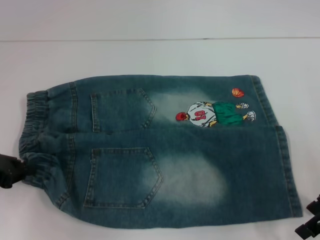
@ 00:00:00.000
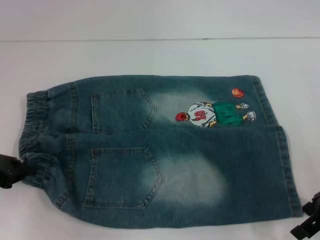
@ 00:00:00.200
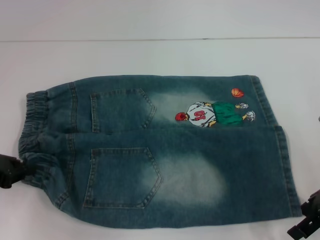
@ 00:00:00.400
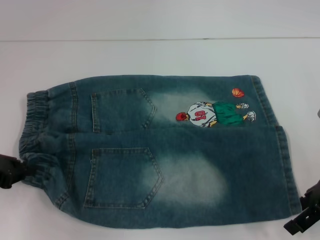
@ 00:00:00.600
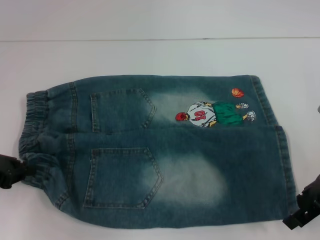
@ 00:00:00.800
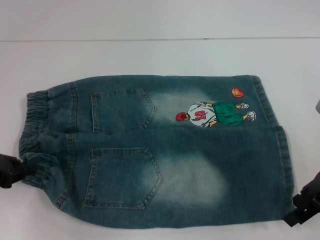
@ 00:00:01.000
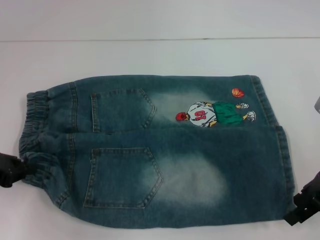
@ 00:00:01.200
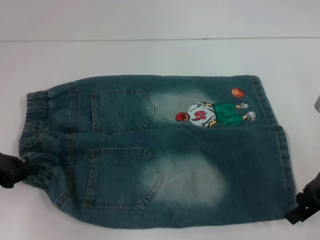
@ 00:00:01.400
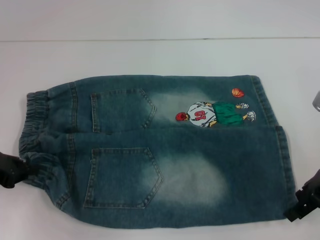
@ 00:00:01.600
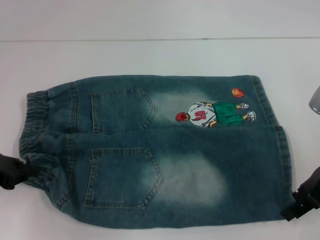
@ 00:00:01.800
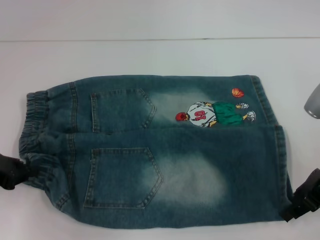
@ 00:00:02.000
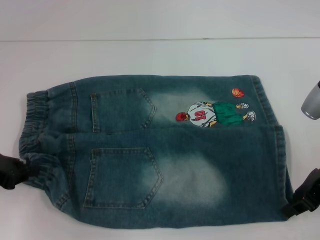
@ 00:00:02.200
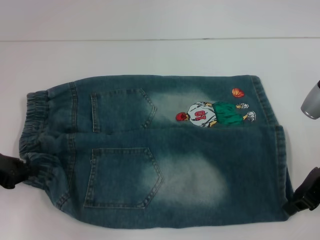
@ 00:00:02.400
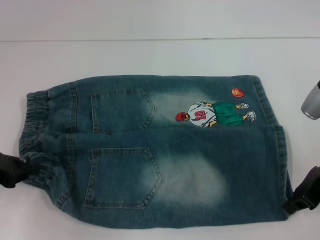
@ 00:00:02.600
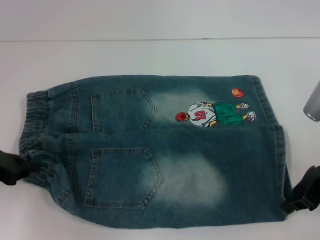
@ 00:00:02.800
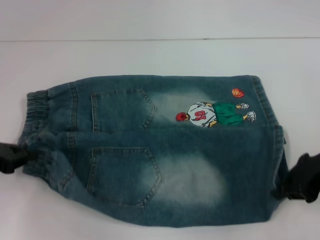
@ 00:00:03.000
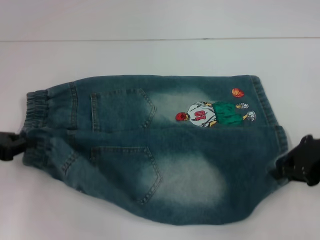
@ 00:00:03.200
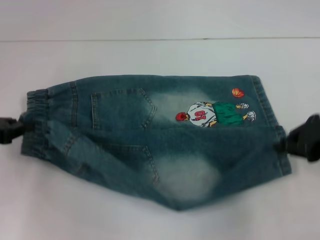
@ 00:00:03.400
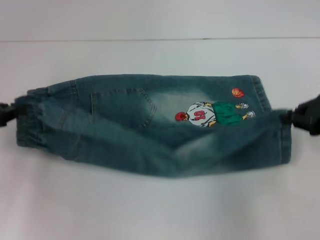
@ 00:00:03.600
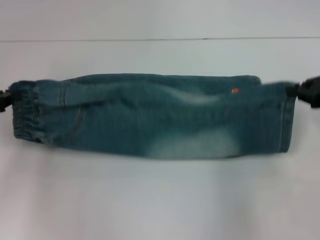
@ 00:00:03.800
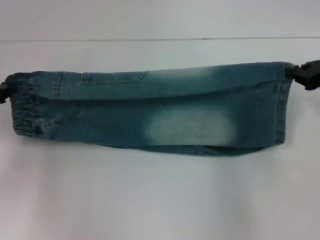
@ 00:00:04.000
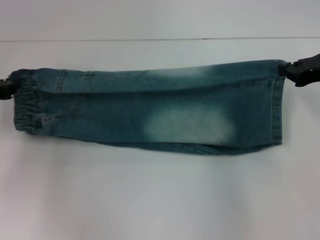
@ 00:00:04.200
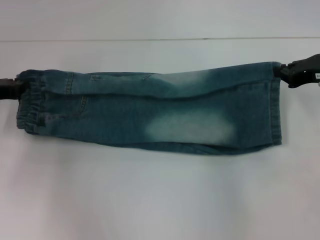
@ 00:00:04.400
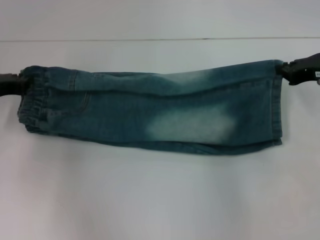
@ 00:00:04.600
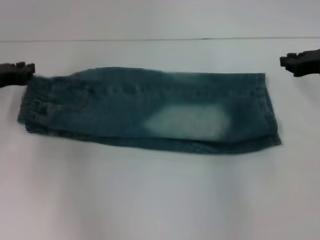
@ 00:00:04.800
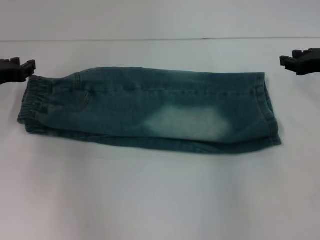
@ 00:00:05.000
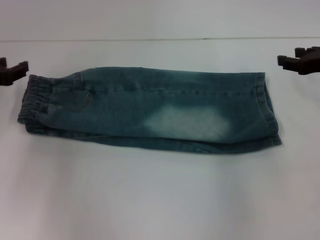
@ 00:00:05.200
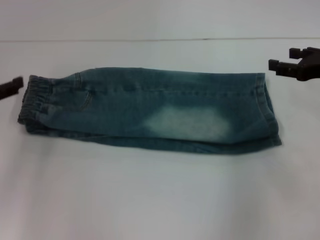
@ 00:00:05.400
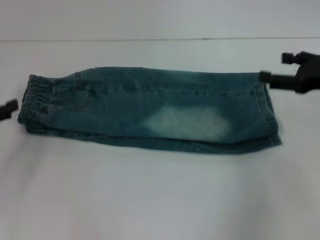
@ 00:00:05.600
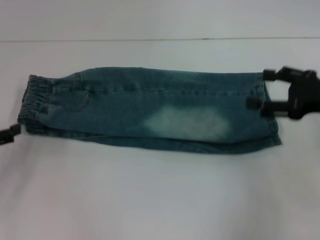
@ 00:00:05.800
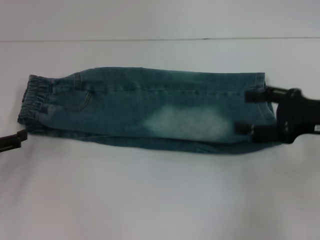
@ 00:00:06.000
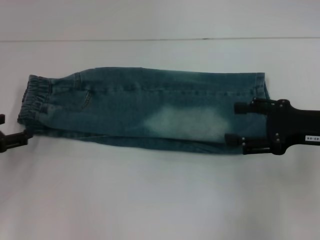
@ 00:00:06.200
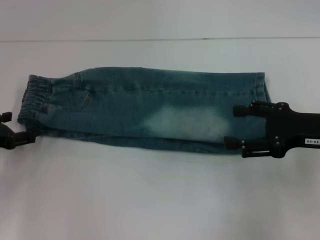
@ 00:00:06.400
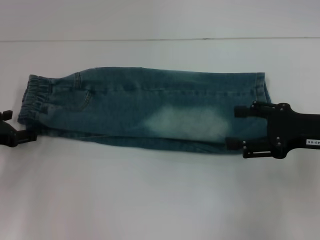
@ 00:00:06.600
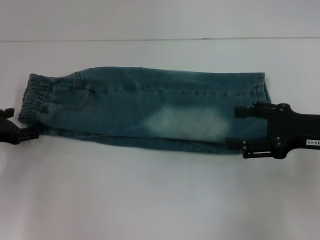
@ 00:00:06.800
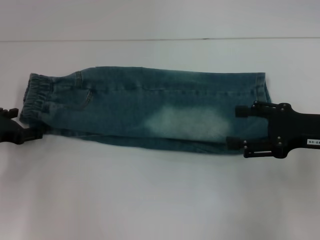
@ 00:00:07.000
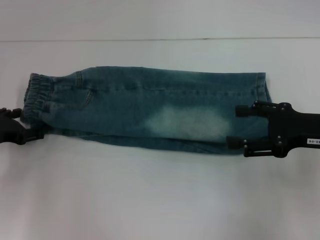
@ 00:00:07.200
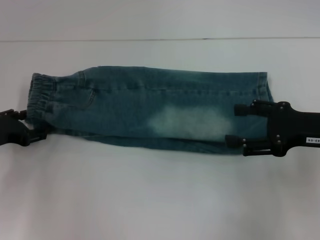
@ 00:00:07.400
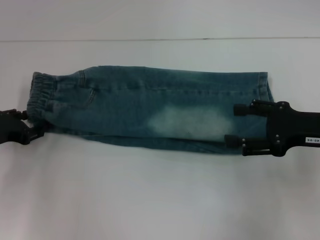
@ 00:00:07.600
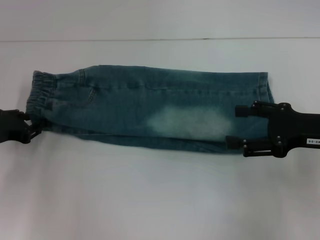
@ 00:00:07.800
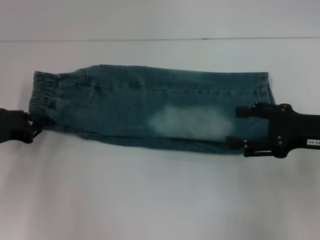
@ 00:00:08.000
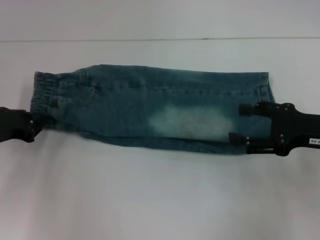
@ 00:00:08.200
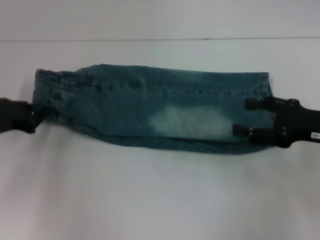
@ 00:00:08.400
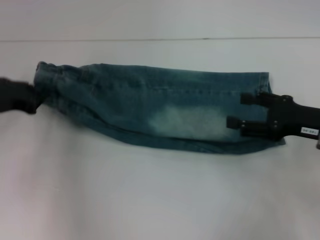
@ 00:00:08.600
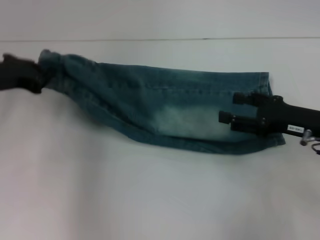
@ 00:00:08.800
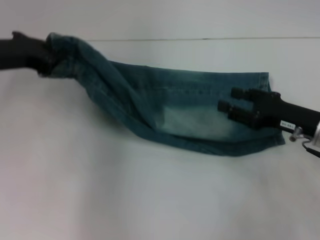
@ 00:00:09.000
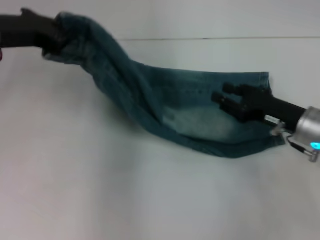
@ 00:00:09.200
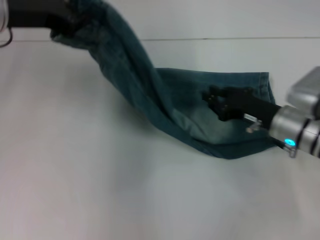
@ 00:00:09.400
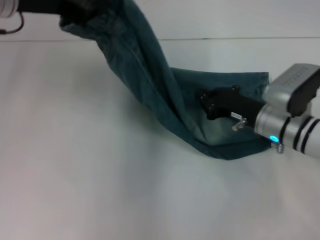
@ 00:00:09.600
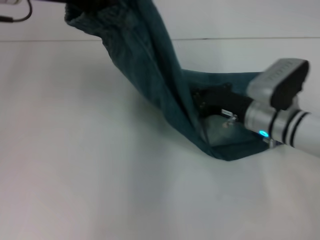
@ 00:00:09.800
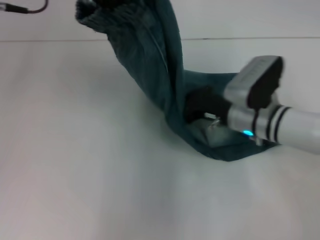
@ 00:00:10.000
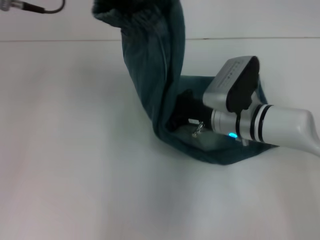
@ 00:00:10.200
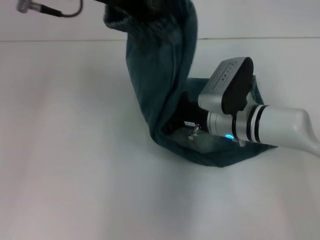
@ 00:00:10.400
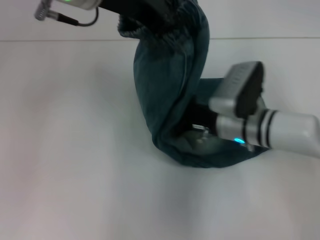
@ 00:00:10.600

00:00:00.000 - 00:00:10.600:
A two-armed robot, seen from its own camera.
Step, 00:00:00.000 - 00:00:02.400: Grab the lower right pant leg with your right hand.
Step, 00:00:02.600 - 00:00:04.600: Fold upward with your right hand.
Step, 00:00:05.000 - 00:00:07.800: Hold the waistband with your left hand.
00:00:00.000 - 00:00:01.600: The grippers stay close to where they were, moving slightly.
00:00:01.600 - 00:00:03.000: The right gripper closes up.
00:00:03.000 - 00:00:04.600: Both grippers travel together forward, approximately 10 cm.
00:00:04.600 - 00:00:06.000: Both grippers travel together backward, approximately 10 cm. The left gripper opens. The right gripper opens up.
00:00:06.000 - 00:00:07.600: The left gripper goes roughly 5 cm forward.
00:00:07.600 - 00:00:09.000: The right gripper moves downward, roughly 5 cm, while the left gripper goes roughly 15 cm upward and to the right, and closes.
00:00:09.000 - 00:00:10.600: The left gripper goes about 20 cm to the right and upward; the right gripper moves to the left, approximately 15 cm, and closes its fingers.

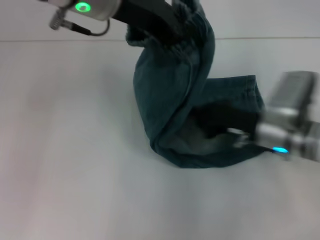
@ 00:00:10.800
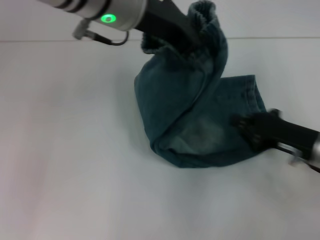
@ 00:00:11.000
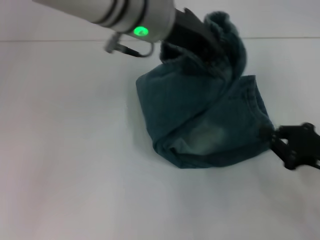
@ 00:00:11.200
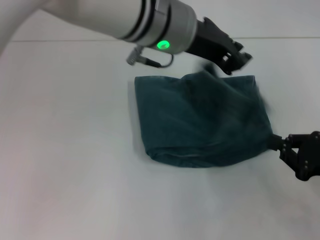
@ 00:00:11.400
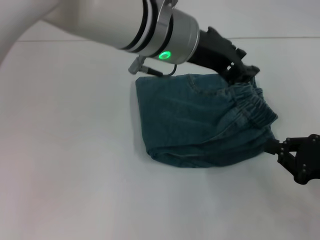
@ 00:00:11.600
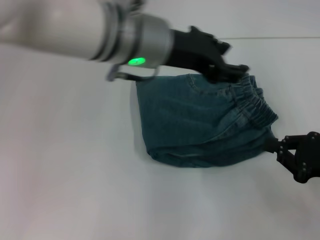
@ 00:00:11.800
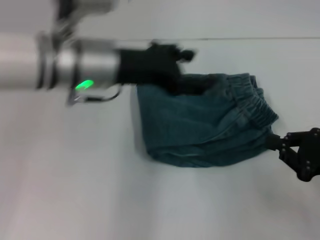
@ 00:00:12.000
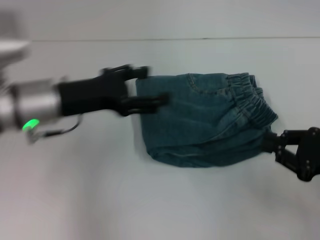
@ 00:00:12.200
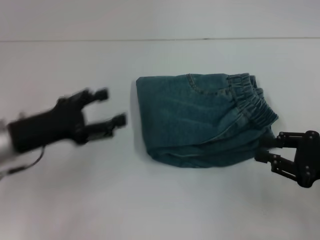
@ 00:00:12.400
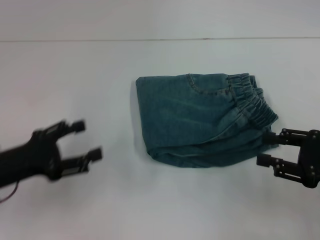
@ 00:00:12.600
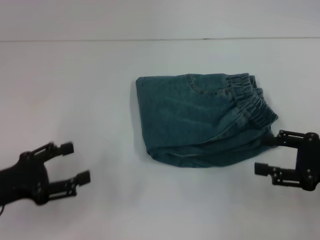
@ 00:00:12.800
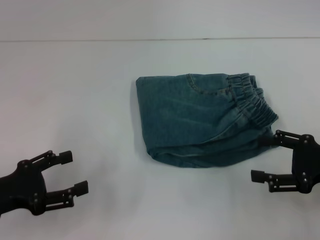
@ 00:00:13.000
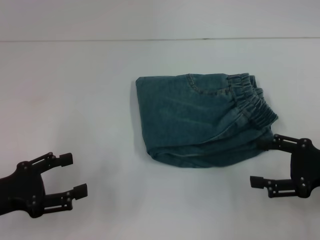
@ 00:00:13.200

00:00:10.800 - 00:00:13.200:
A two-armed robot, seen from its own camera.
Step, 00:00:10.800 - 00:00:11.400: Fold to the right with your left hand.
00:00:10.800 - 00:00:12.000: The right gripper moves to the right and backward, approximately 15 cm, while the left gripper moves downward, approximately 10 cm, moves some 10 cm to the right and comes back, and opens up.
00:00:12.000 - 00:00:13.200: The right gripper opens. The left gripper moves to the left, backward and downward, approximately 25 cm, and opens its fingers.
